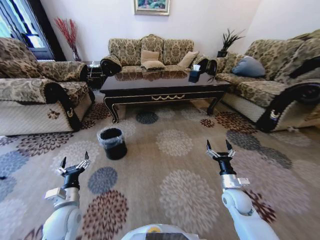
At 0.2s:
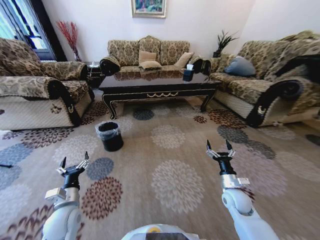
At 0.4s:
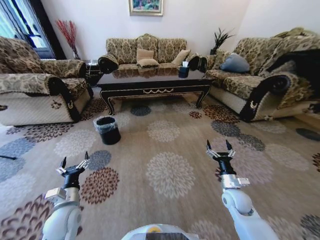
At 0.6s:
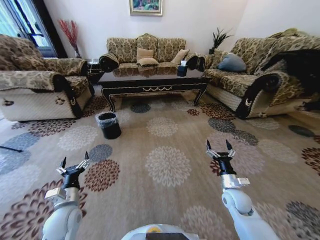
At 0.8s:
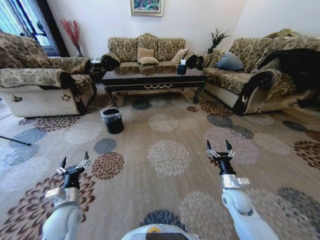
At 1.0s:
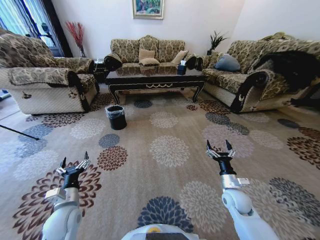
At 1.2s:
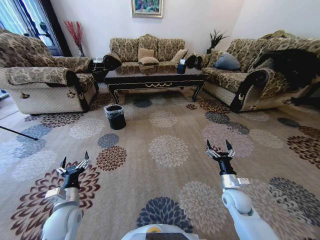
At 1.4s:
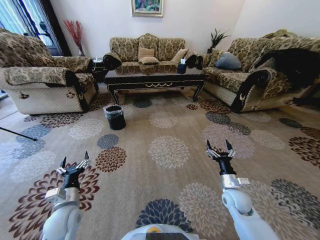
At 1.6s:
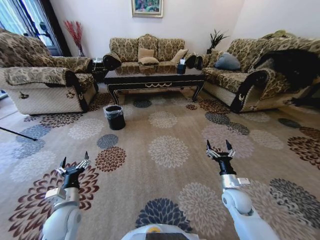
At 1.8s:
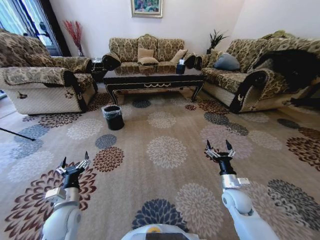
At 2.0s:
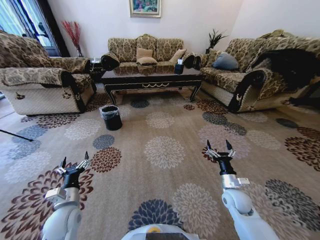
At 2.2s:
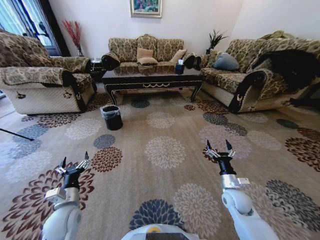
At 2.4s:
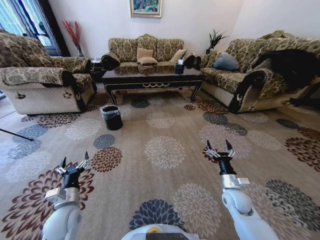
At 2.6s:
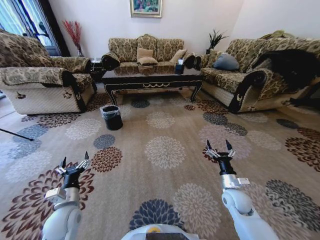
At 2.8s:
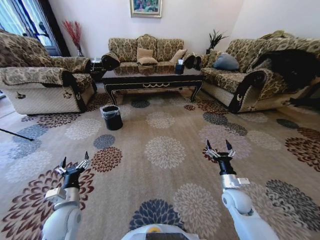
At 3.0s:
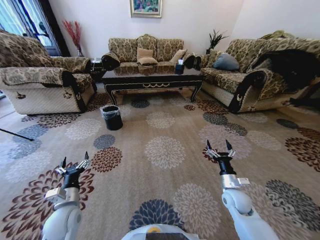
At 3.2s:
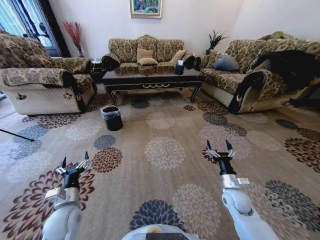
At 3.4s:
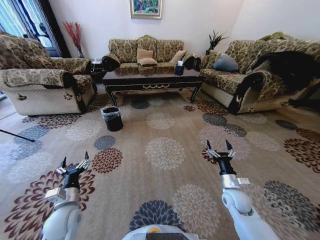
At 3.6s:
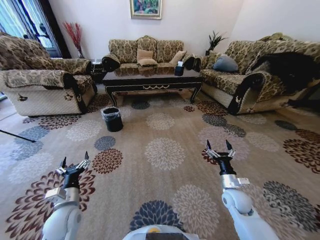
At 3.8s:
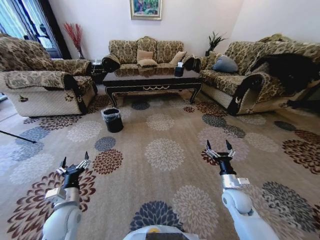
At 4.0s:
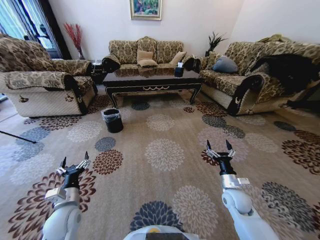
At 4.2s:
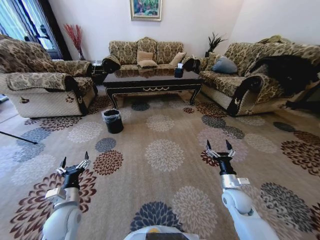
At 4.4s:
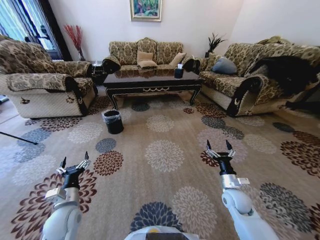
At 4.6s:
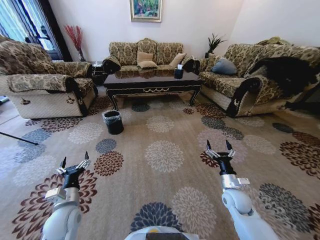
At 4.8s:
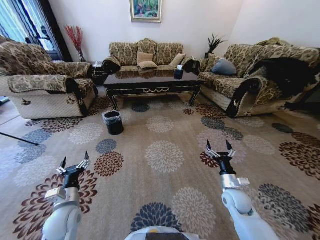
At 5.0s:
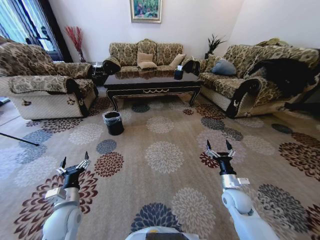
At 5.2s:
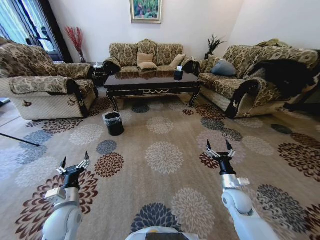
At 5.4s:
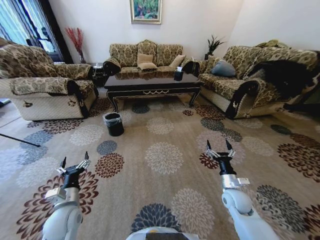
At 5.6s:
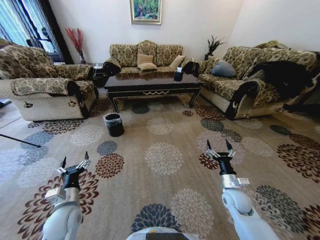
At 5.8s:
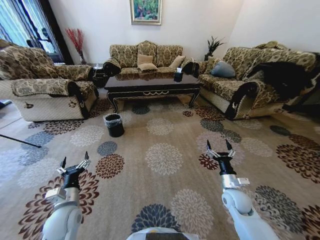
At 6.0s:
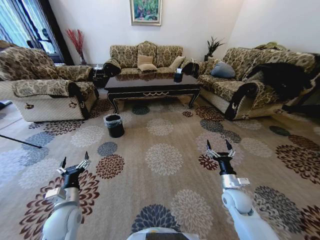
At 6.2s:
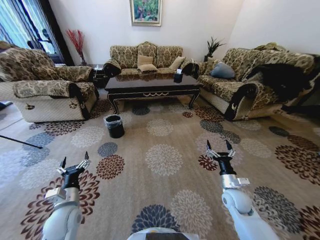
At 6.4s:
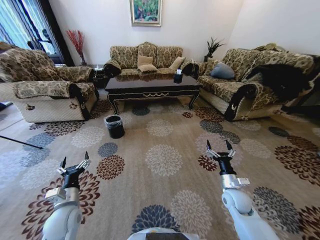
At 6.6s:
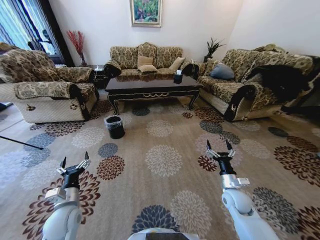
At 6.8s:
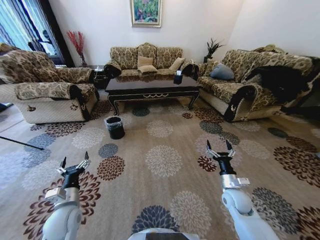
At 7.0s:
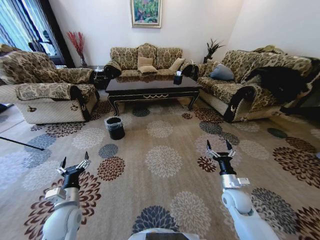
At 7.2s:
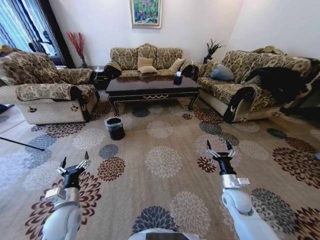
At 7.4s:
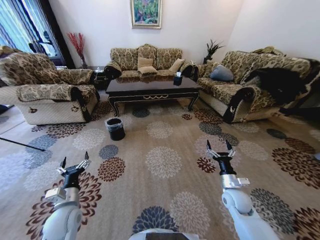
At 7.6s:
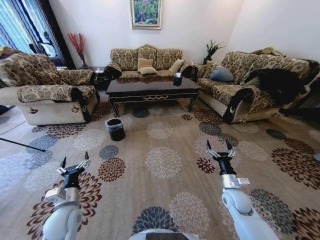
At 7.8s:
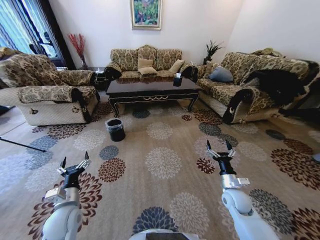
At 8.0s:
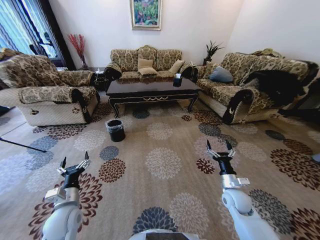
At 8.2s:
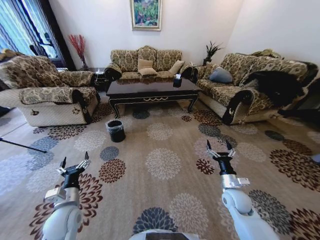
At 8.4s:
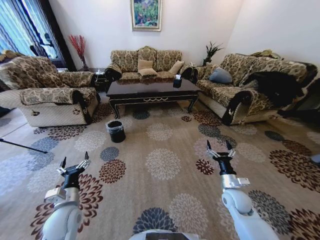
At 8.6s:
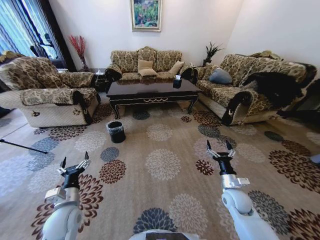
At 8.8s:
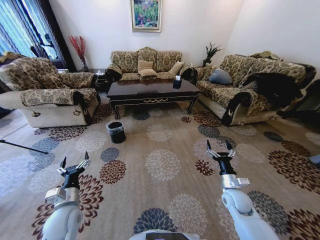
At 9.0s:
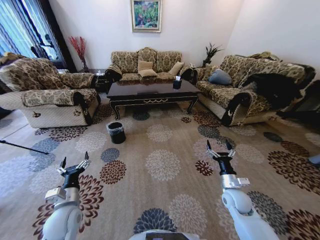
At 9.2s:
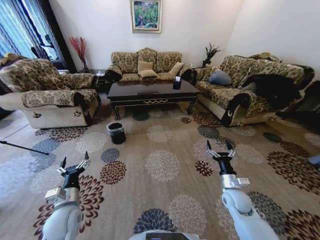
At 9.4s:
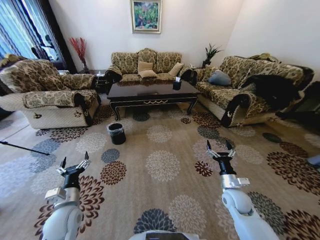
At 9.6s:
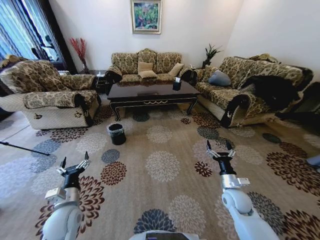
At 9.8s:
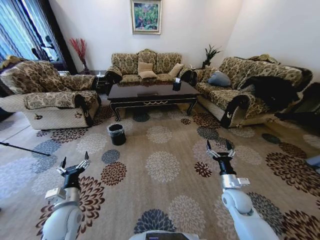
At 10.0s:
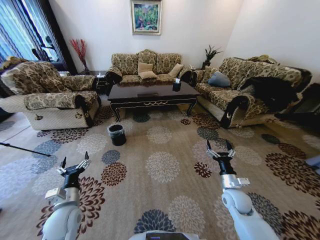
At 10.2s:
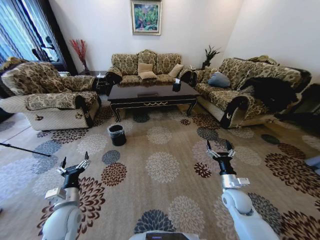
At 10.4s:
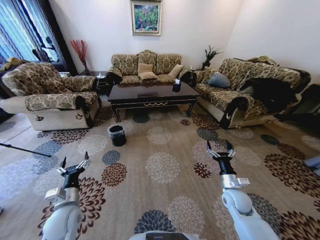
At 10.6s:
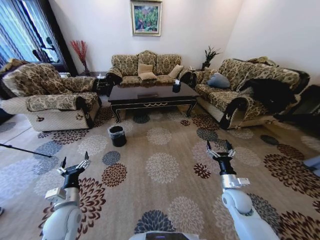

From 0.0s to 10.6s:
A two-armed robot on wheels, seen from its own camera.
Task of the whole recording: Move to the front of the table and pick up the trash from the floor, then place it into the trash bin.
From 1.6s to 3.0s: The two grippers keep their place.
